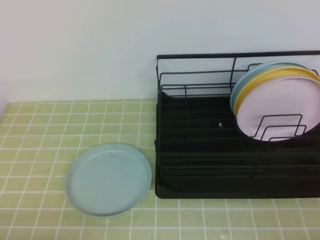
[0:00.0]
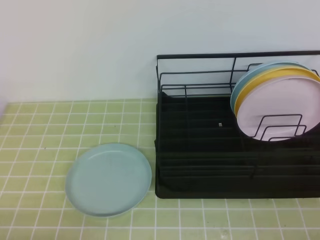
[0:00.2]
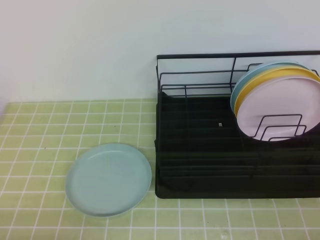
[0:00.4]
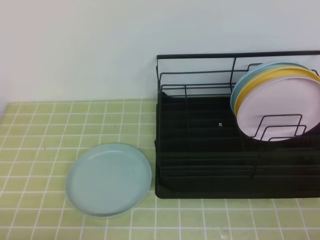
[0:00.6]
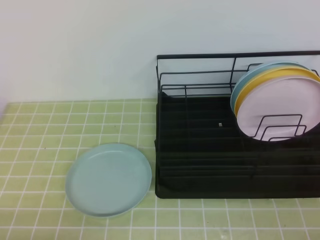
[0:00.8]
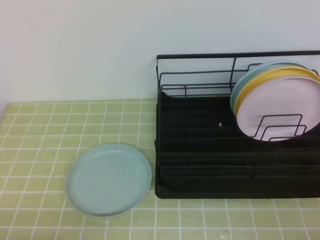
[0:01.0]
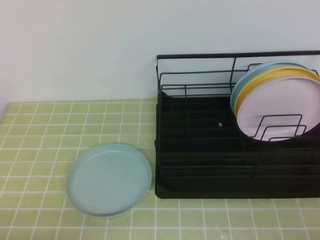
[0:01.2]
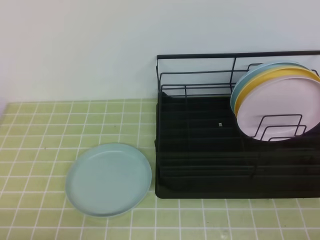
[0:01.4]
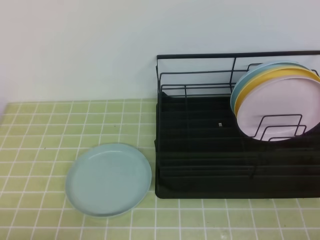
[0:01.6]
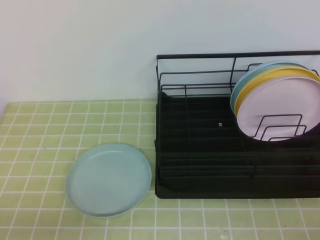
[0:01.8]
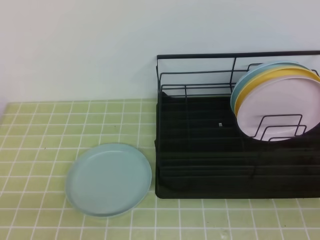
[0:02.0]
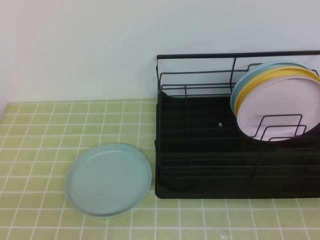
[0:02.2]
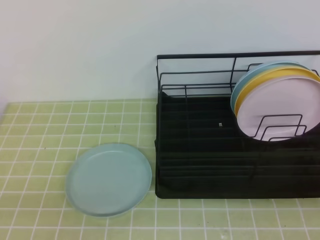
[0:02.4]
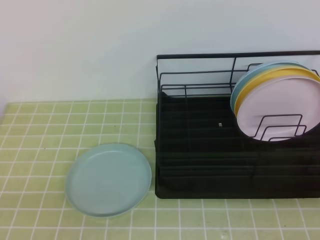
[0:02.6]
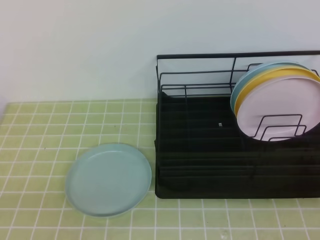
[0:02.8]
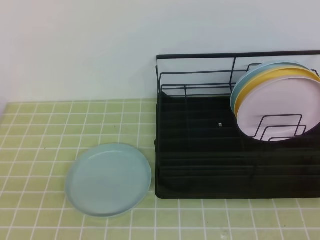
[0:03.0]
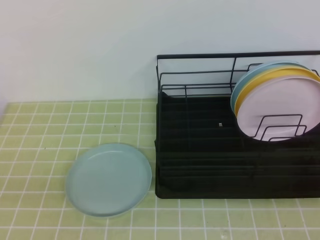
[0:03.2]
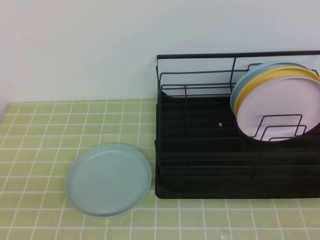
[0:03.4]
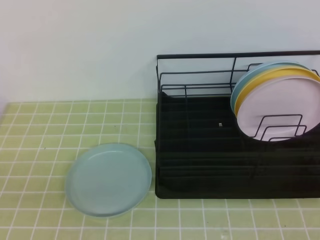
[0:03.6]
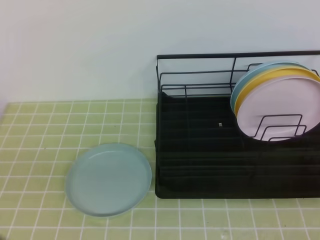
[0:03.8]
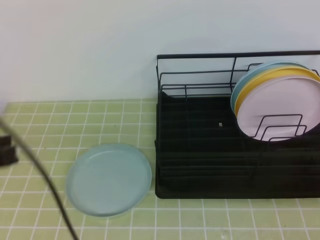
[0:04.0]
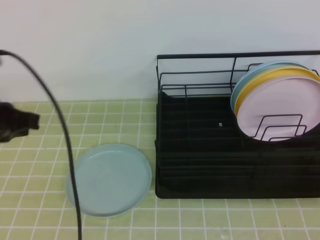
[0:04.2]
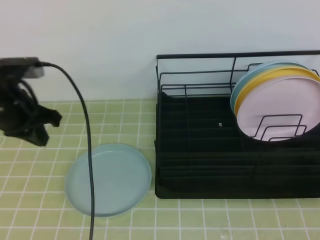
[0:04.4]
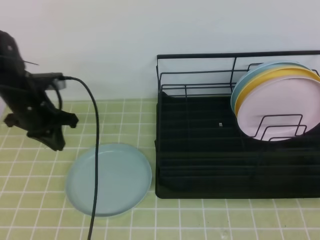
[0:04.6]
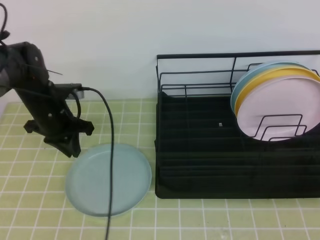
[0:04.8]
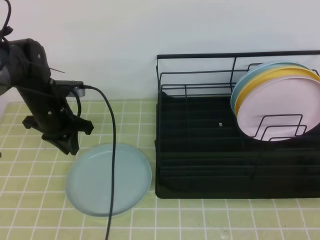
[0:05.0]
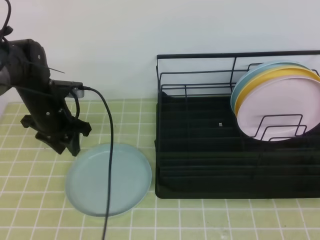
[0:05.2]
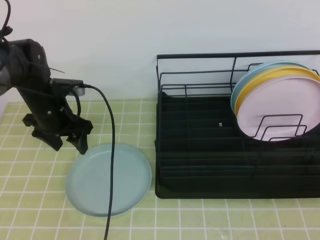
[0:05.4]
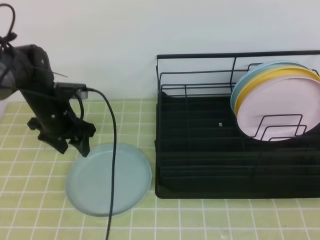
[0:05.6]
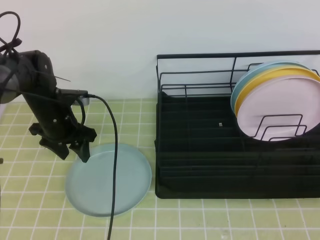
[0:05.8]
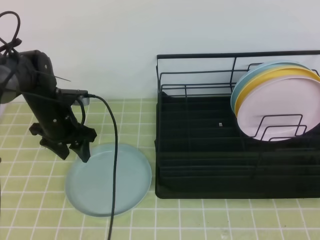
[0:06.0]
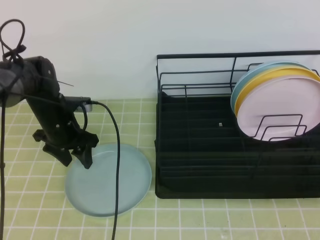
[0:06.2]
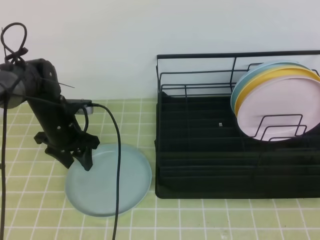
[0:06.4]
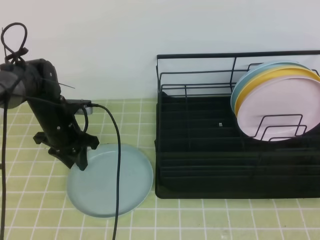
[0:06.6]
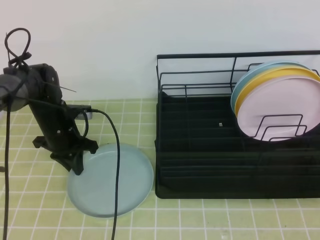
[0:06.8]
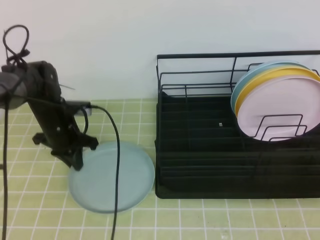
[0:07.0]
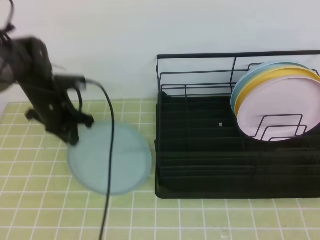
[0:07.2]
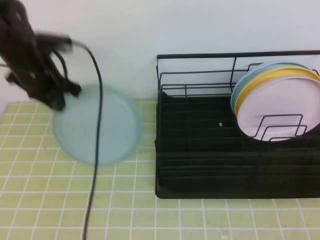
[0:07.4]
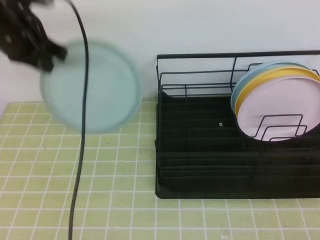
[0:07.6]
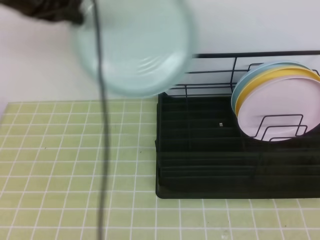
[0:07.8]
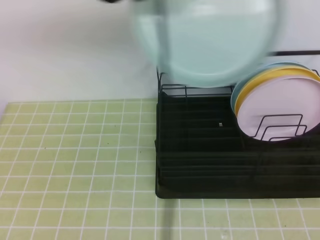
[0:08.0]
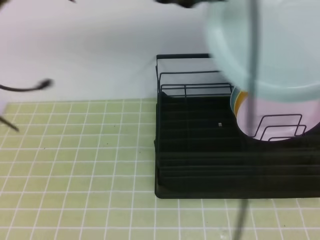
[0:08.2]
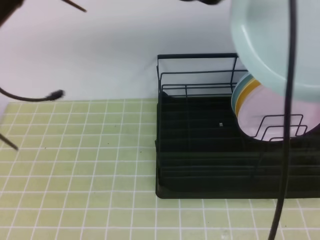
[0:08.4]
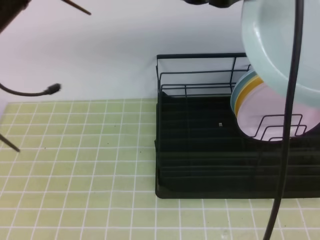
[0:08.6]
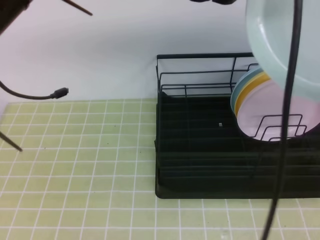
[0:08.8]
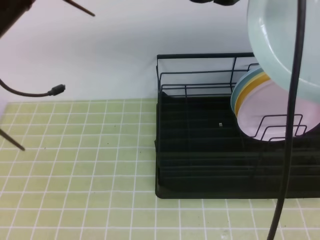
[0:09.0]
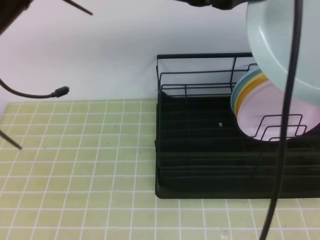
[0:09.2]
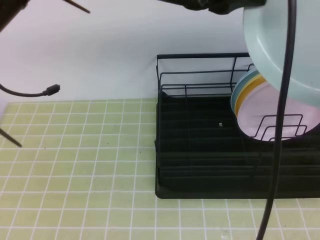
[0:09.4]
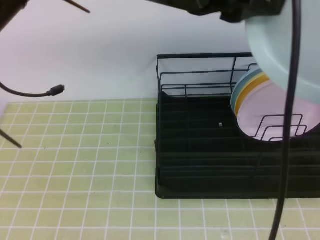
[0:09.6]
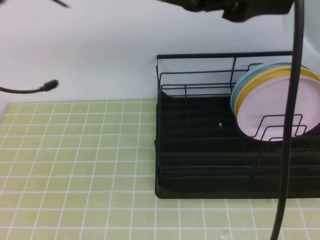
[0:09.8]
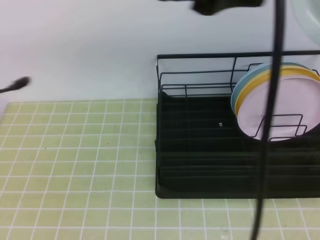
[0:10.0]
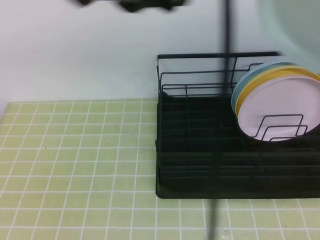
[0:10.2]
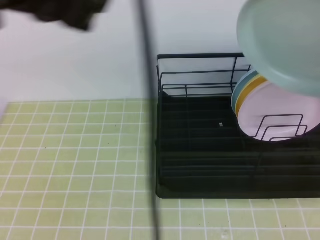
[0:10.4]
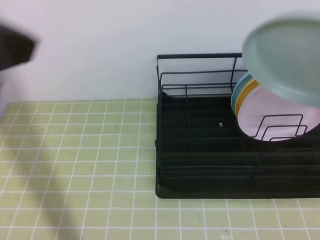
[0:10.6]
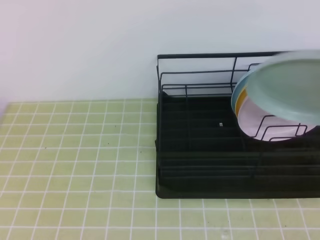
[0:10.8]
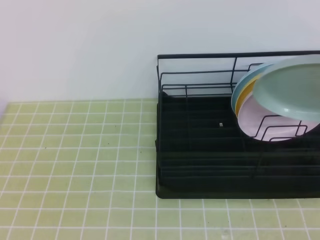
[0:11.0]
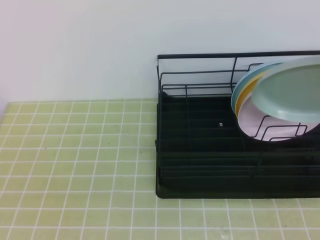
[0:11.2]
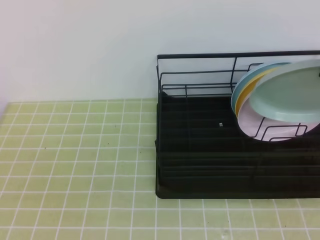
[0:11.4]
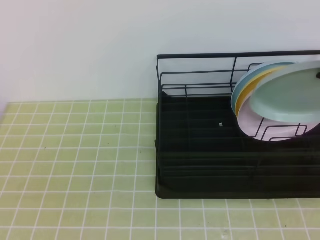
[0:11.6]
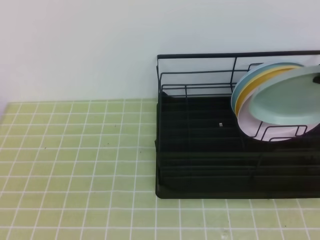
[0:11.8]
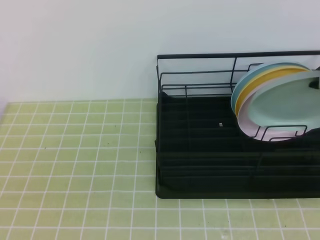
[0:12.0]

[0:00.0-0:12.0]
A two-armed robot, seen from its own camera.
0:00.0 to 0:01.6: Both grippers stay about where they are.
0:03.0 to 0:04.4: The left gripper goes about 30 cm forward.
0:04.4 to 0:06.0: The left gripper moves downward and forward, some 15 cm, and opens its fingers.
0:06.0 to 0:07.6: The left gripper heads upward, covering roughly 20 cm, and closes.
0:07.6 to 0:09.0: The right gripper shifts some 10 cm upward and forward, and opens up; the left gripper heads to the right, backward and upward, covering about 25 cm.
0:09.0 to 0:10.4: The right gripper goes roughly 10 cm forward, and closes. Meanwhile the left gripper heads to the left and backward, covering about 15 cm, and opens and closes again.
0:10.4 to 0:12.0: The right gripper moves forward and downward, roughly 15 cm. Meanwhile the left gripper is displaced downward, backward and to the left by about 25 cm.

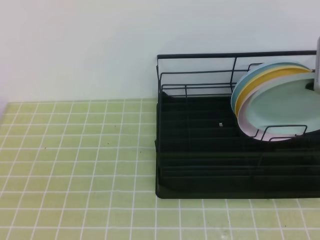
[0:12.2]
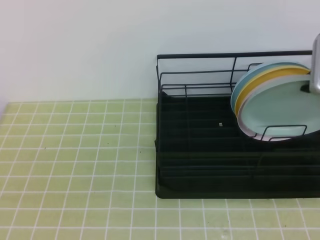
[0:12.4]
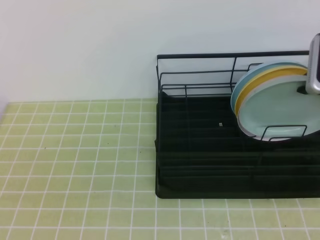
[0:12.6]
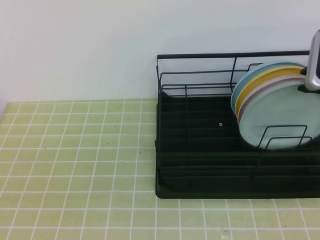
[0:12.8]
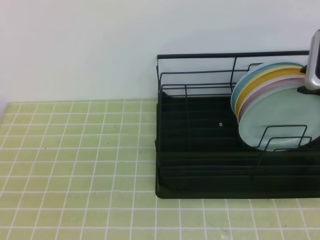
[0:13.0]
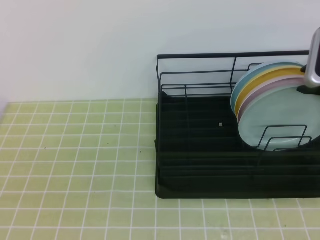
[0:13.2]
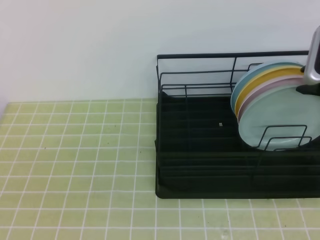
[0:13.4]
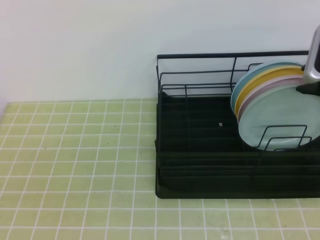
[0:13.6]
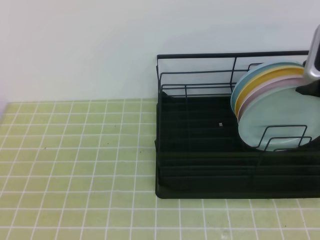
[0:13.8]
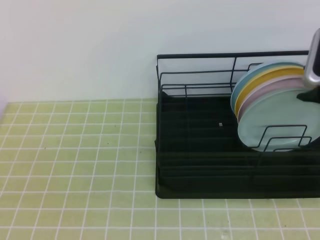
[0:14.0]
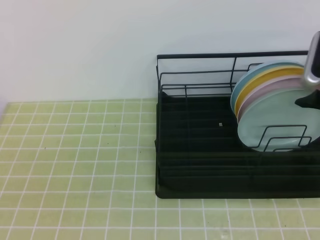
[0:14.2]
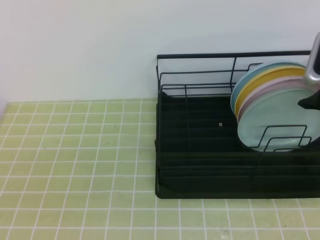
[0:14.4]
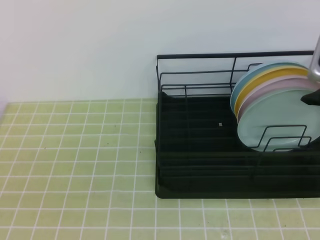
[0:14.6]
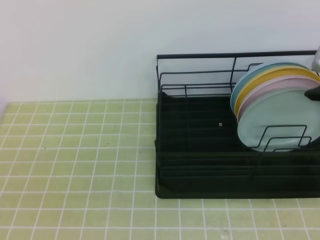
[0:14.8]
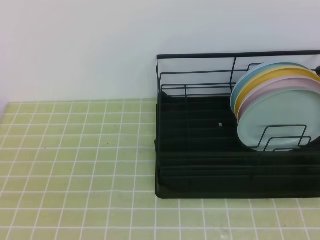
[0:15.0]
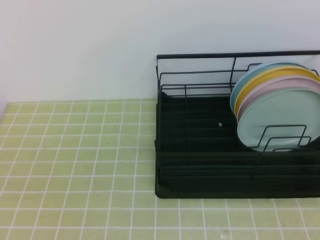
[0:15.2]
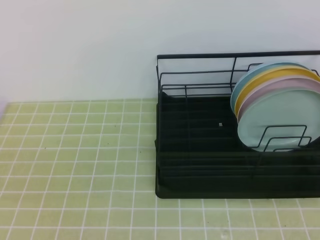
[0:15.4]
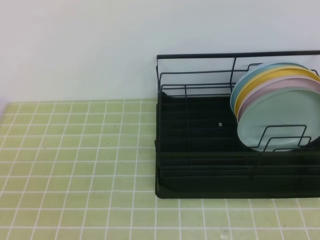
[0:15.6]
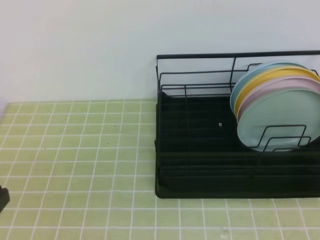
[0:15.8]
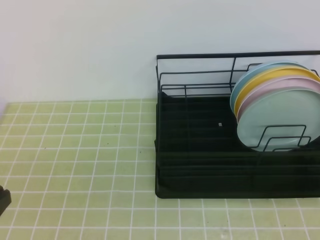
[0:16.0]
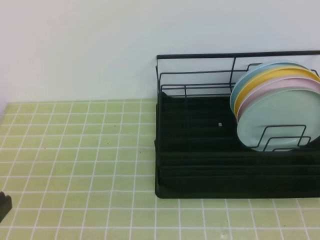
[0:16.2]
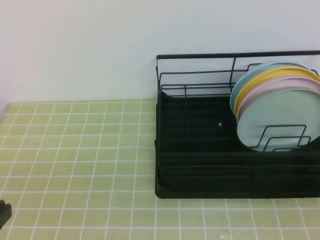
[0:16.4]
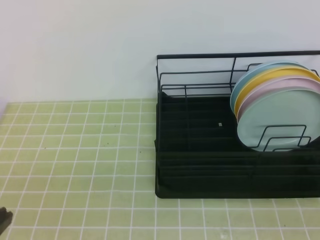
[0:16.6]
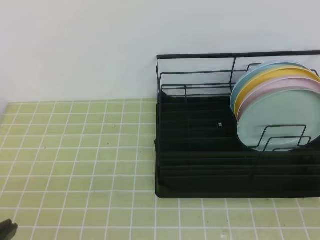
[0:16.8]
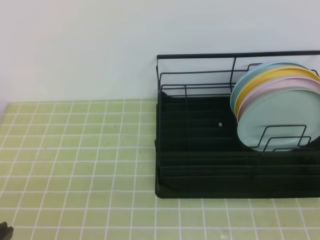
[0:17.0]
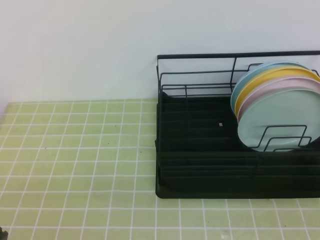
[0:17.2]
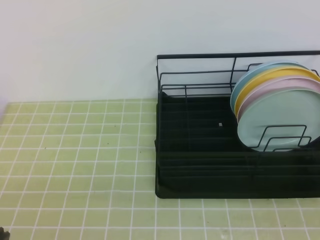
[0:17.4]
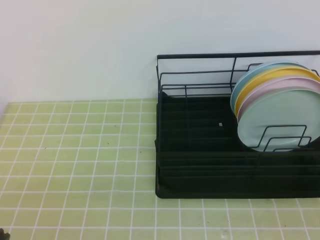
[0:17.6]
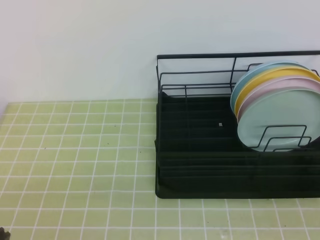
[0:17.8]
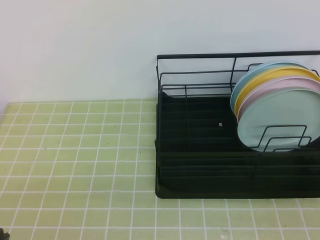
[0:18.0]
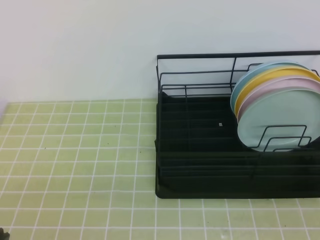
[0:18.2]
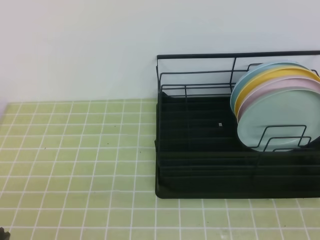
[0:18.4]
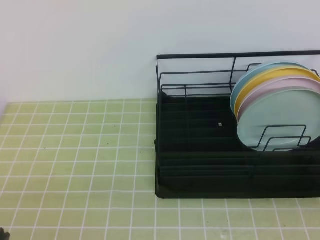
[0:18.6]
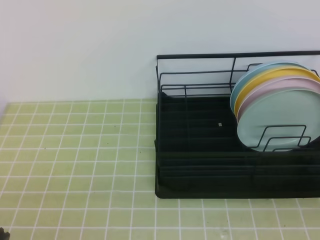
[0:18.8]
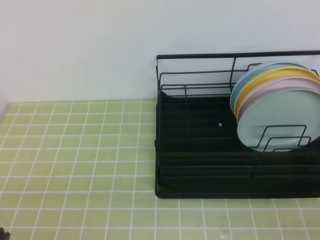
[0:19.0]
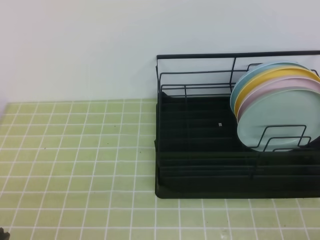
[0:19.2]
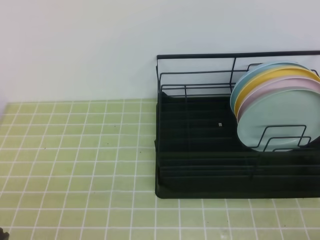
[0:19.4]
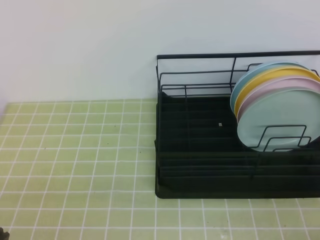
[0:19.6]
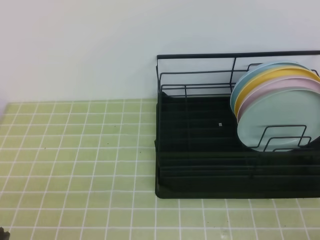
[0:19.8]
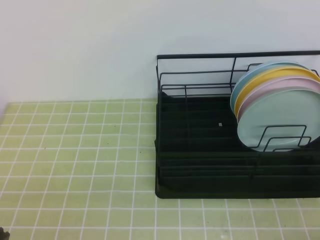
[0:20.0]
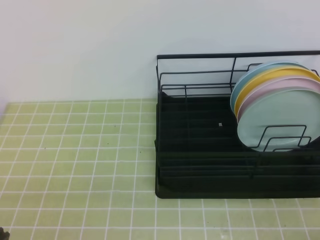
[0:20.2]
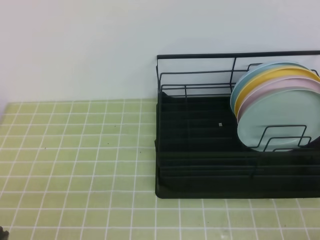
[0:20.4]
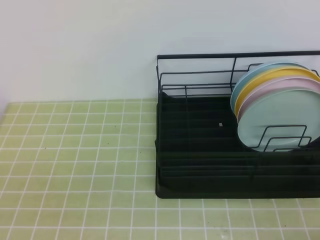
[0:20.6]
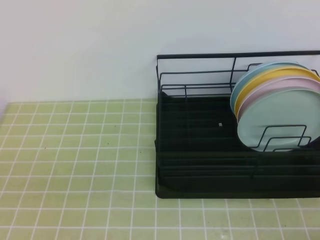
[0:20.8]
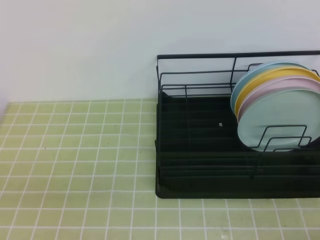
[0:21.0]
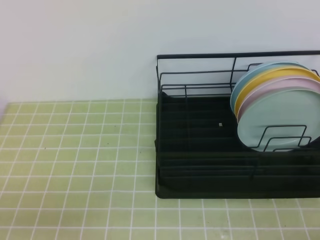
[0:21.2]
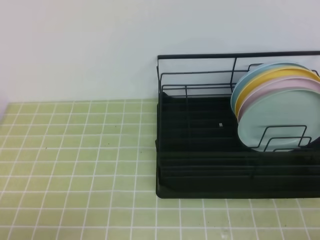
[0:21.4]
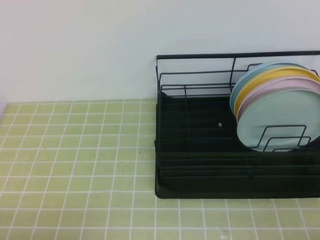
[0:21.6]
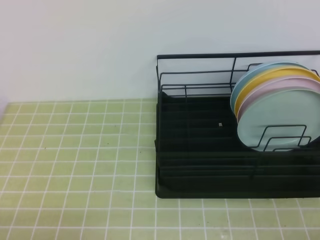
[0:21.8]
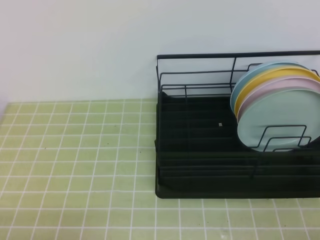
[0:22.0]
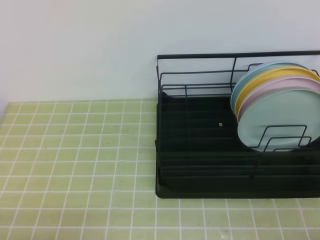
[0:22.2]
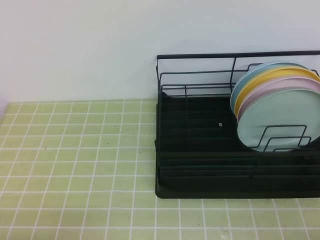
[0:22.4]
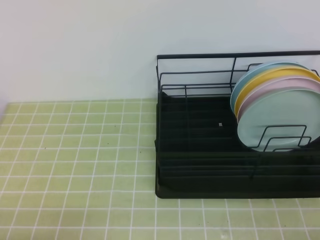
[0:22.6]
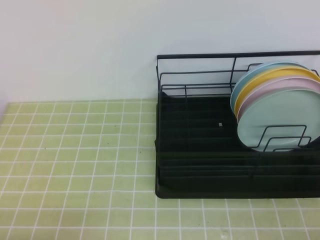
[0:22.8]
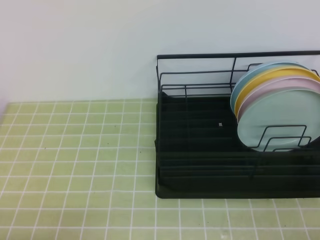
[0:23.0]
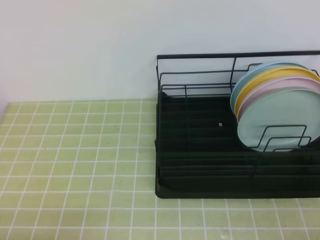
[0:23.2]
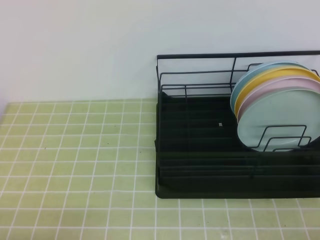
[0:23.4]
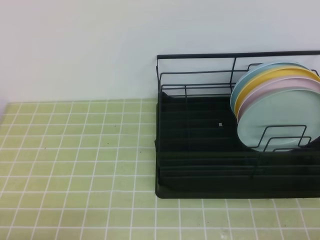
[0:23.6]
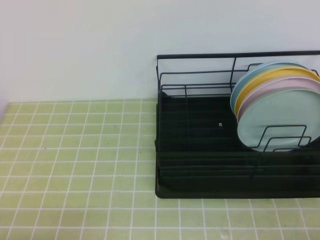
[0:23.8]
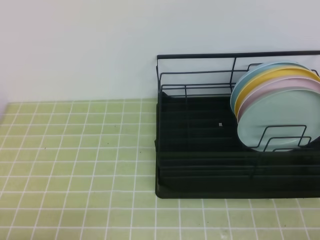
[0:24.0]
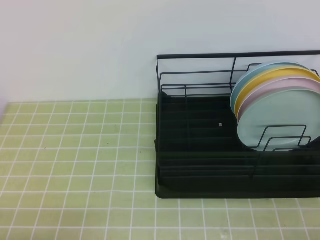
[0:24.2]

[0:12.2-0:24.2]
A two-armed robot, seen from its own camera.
0:12.2 to 0:13.8: The right gripper opens its fingers.
0:13.8 to 0:15.2: The right gripper moves upward and backward, some 10 cm, and closes up.
0:15.2 to 0:16.6: The right gripper is displaced backward and downward by approximately 25 cm.
0:22.6 to 0:24.2: Both grippers stay about where they are.
